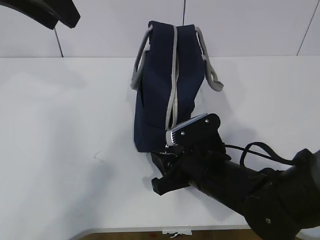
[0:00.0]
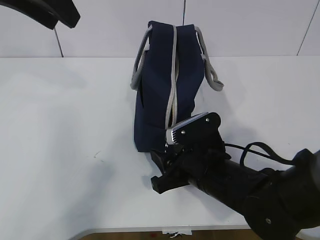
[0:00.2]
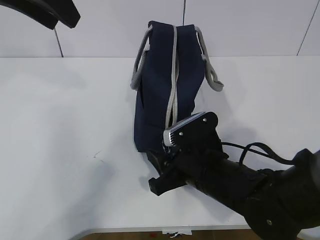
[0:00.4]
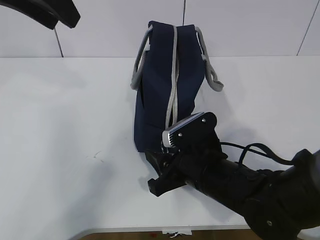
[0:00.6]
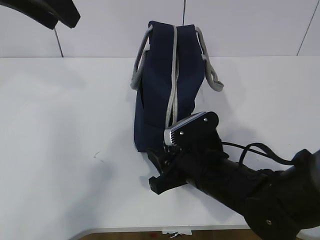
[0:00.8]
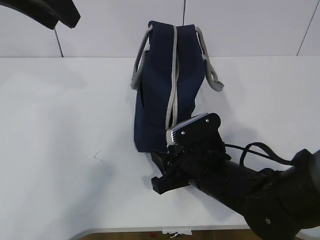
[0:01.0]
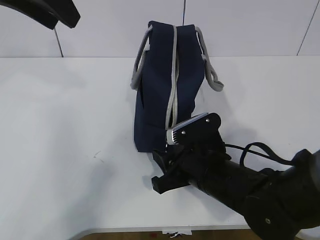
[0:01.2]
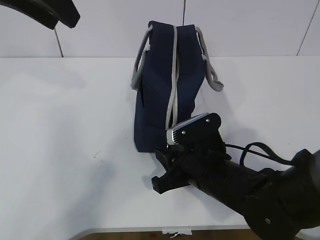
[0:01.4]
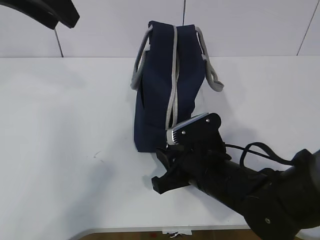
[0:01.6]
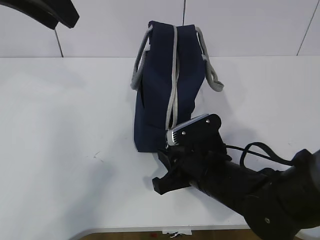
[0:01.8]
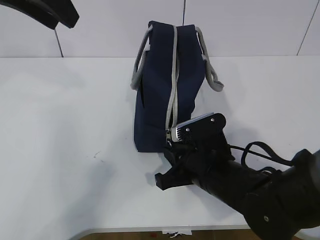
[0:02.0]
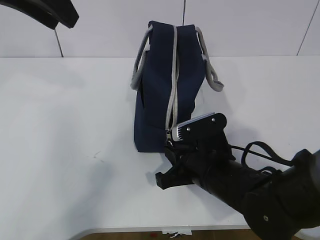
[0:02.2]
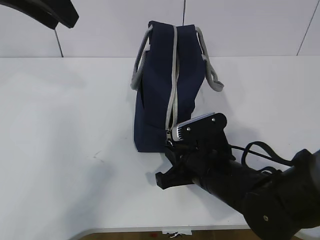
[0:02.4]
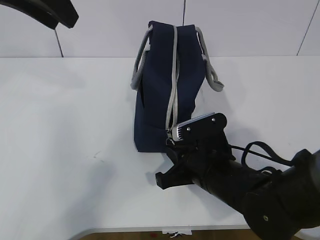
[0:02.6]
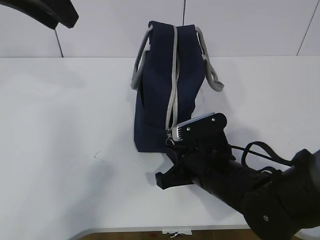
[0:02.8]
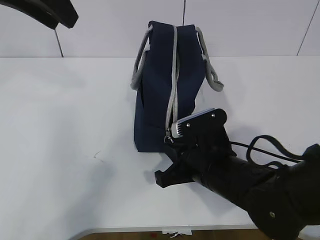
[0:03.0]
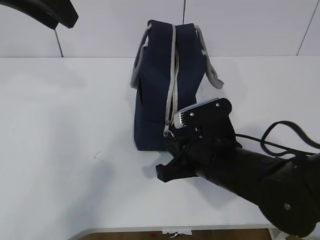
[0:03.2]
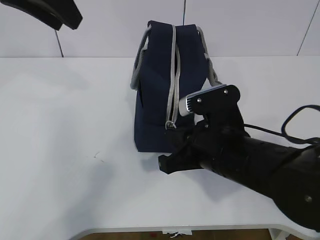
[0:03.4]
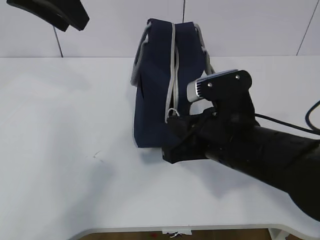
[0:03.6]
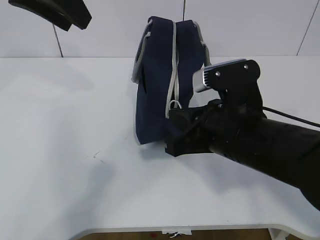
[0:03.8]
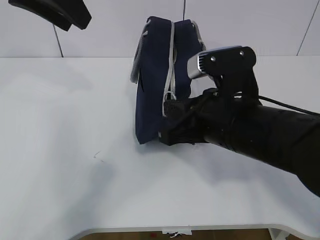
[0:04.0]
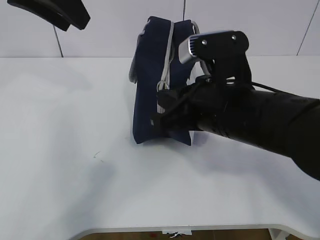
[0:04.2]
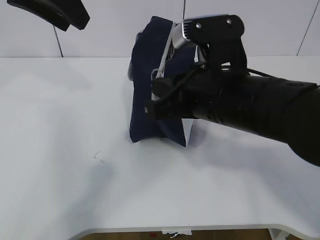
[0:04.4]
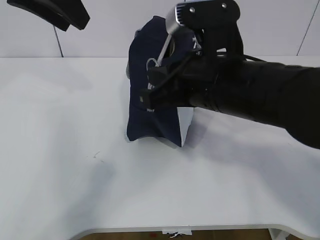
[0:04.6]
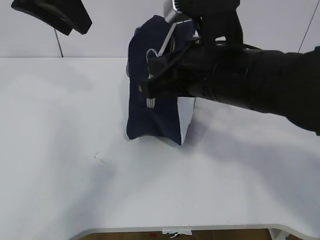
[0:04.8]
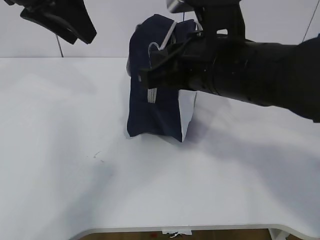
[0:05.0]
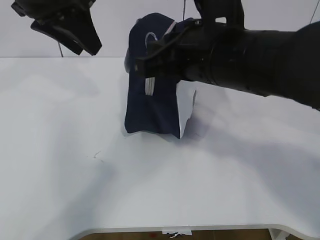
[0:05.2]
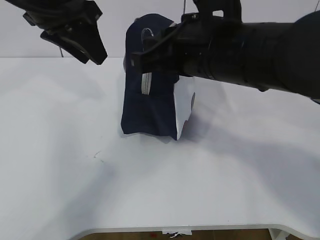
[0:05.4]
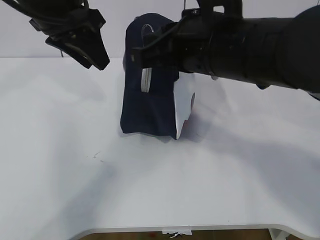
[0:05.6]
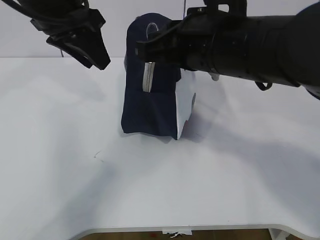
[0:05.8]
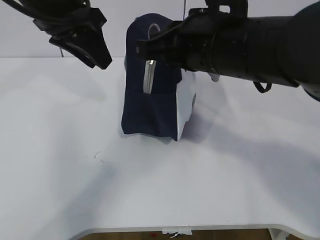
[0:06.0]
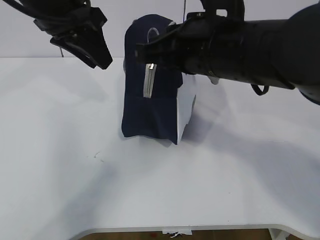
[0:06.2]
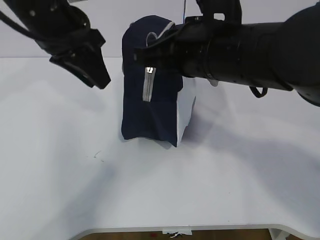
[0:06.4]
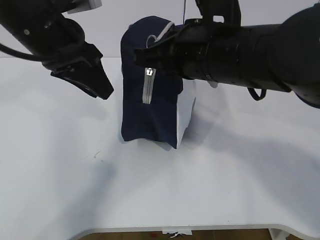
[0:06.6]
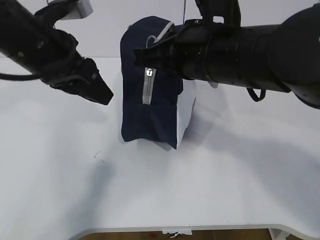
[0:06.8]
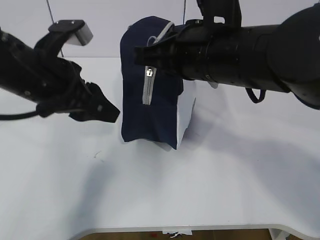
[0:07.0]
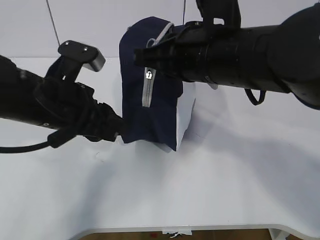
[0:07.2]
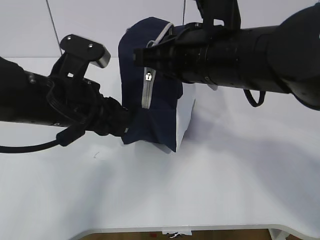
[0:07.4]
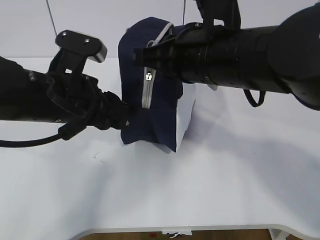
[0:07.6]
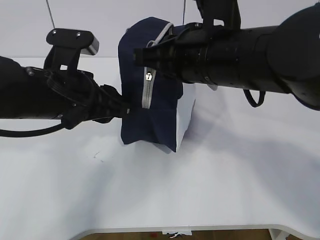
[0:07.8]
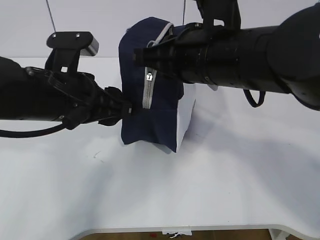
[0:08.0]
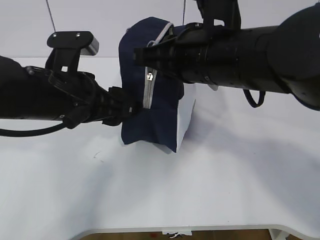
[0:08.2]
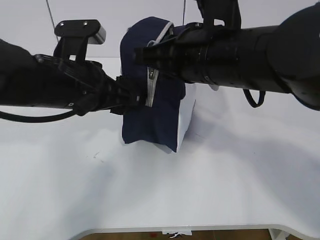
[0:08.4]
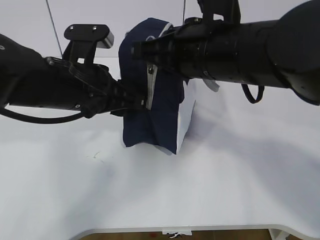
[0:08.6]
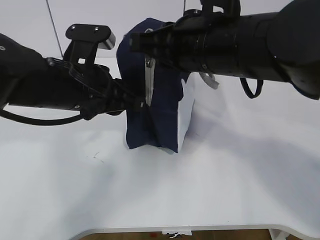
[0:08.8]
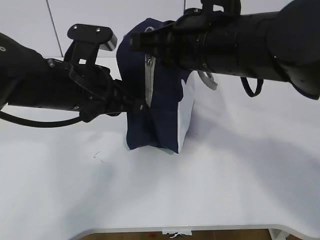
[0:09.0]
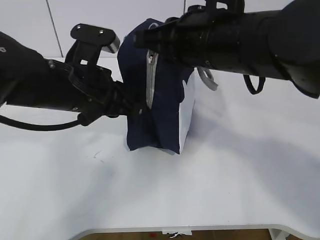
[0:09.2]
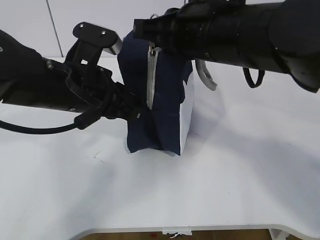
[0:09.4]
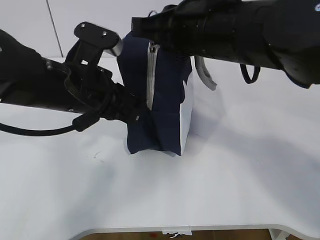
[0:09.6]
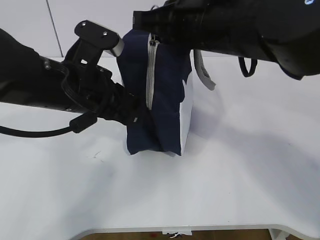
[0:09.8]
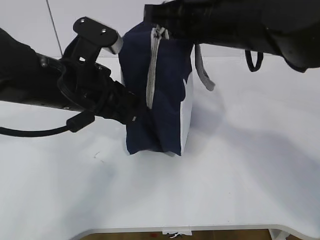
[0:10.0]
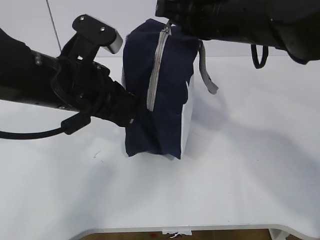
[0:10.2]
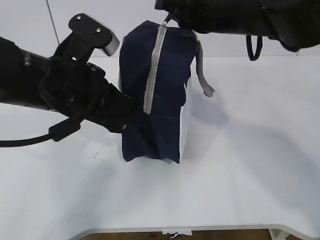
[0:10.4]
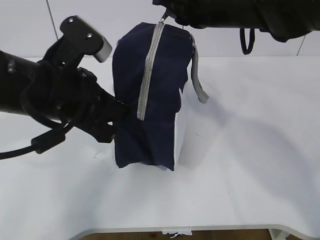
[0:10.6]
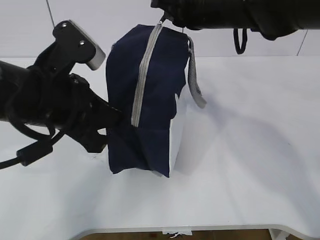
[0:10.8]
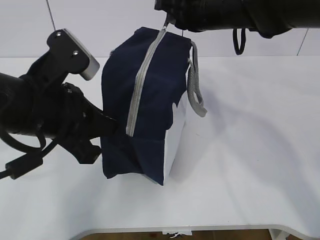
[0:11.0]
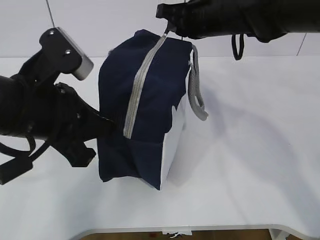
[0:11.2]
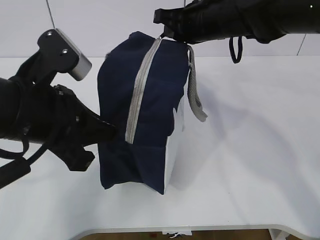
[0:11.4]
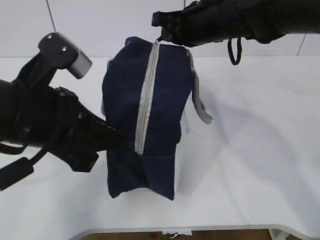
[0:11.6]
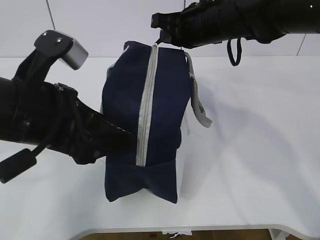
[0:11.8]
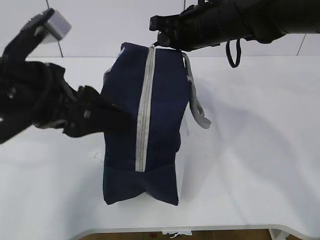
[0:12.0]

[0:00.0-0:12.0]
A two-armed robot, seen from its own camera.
0:00.0 to 0:01.6: There are only small adjustments of the grippers.
0:01.6 to 0:03.0: The right gripper closes up.
0:03.0 to 0:04.4: The right gripper shifts approximately 15 cm upward.
0:04.4 to 0:06.0: The right gripper travels upward by some 5 cm; the left gripper shifts roughly 5 cm downward.
0:06.0 to 0:07.6: The left gripper heads downward and backward, covering roughly 15 cm.
0:07.6 to 0:09.0: The left gripper closes up.
0:09.0 to 0:10.4: The right gripper heads forward, covering some 5 cm.
0:10.4 to 0:12.0: The left gripper changes place by about 5 cm, and opens up. The right gripper shifts some 5 cm forward.

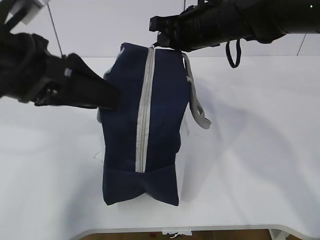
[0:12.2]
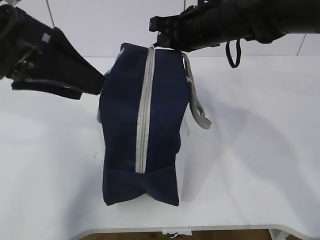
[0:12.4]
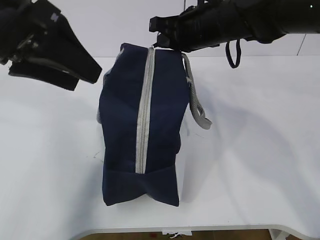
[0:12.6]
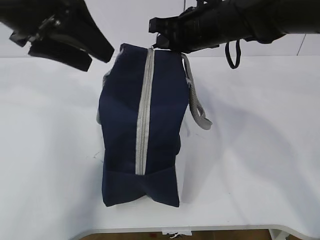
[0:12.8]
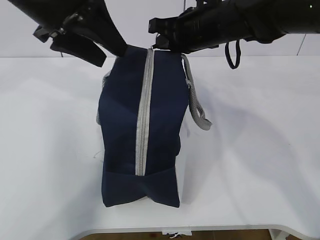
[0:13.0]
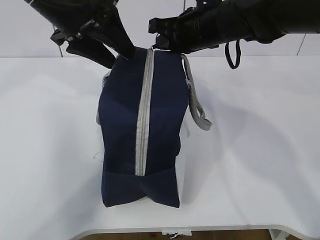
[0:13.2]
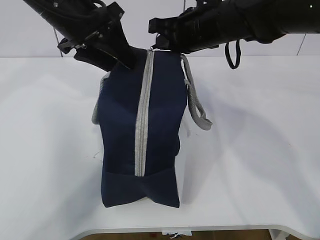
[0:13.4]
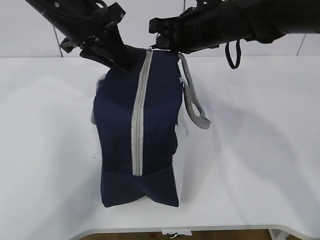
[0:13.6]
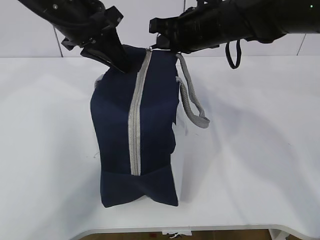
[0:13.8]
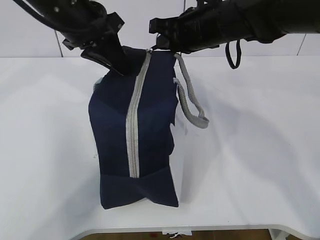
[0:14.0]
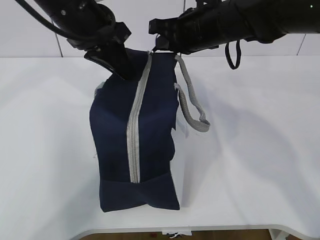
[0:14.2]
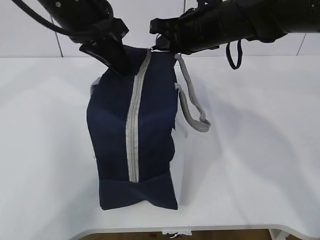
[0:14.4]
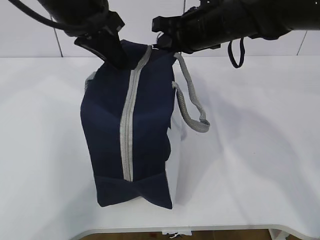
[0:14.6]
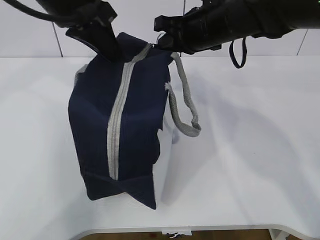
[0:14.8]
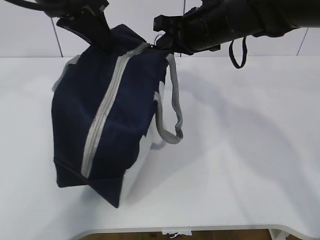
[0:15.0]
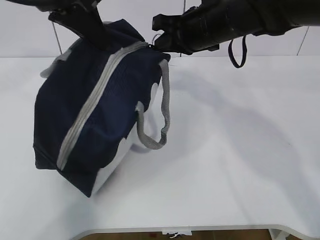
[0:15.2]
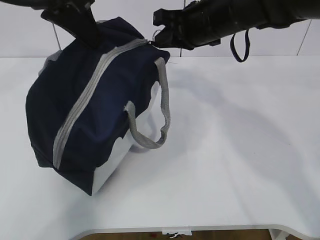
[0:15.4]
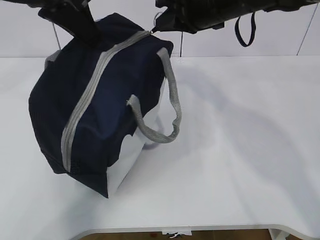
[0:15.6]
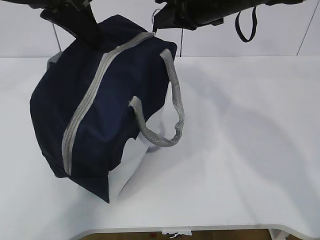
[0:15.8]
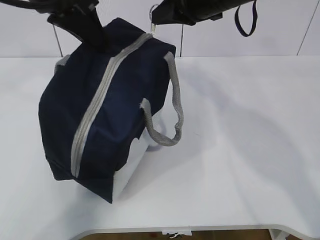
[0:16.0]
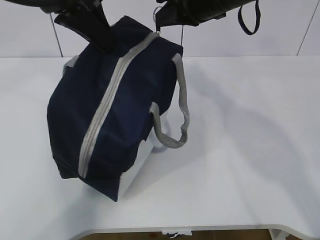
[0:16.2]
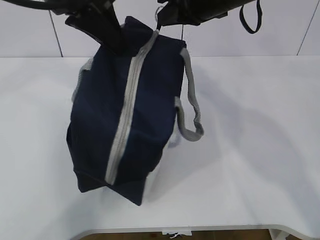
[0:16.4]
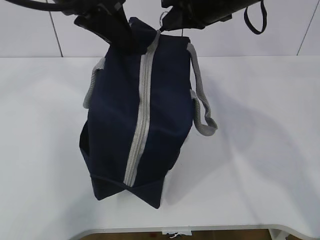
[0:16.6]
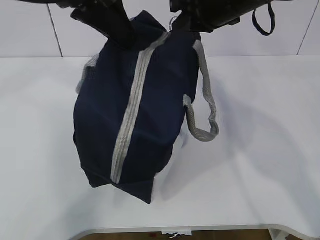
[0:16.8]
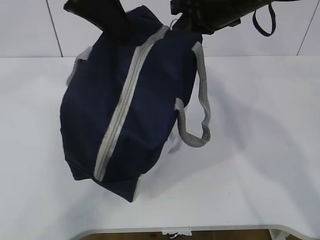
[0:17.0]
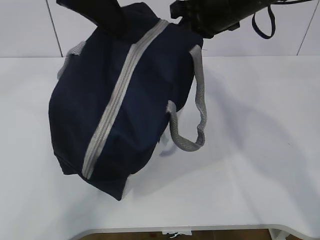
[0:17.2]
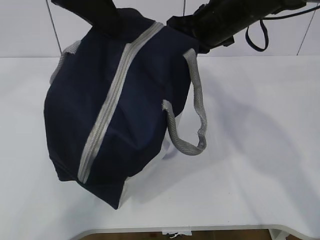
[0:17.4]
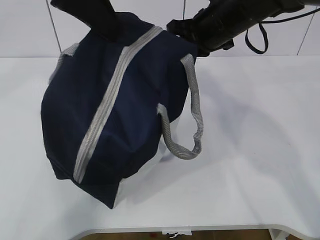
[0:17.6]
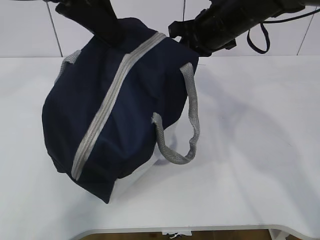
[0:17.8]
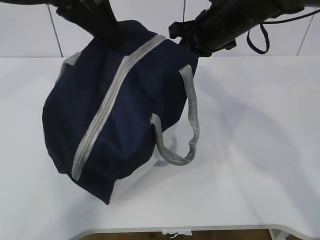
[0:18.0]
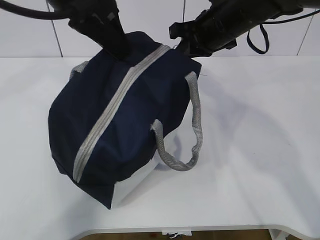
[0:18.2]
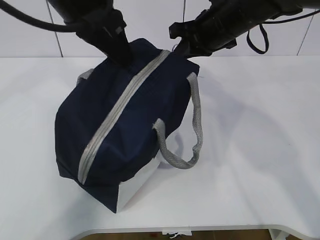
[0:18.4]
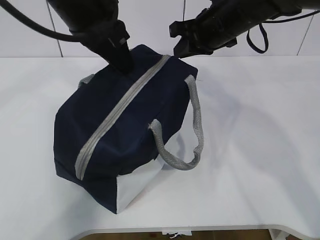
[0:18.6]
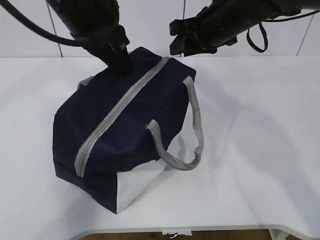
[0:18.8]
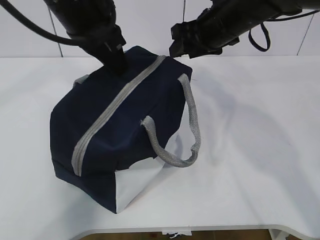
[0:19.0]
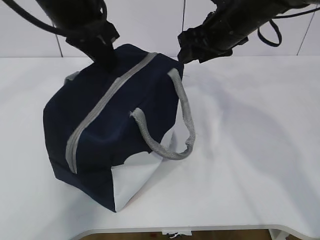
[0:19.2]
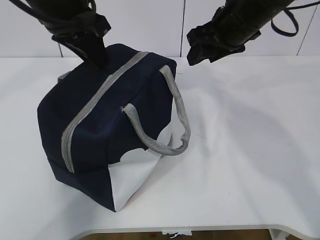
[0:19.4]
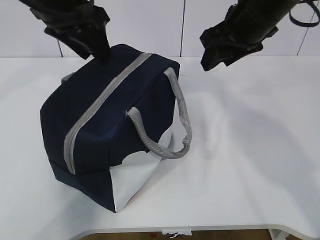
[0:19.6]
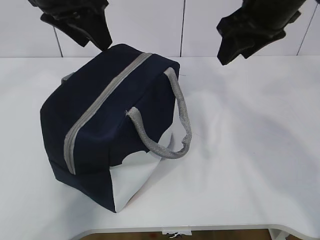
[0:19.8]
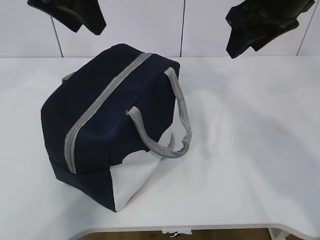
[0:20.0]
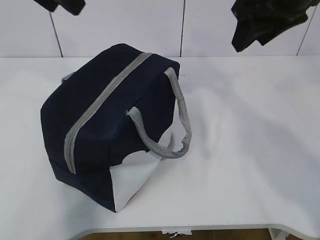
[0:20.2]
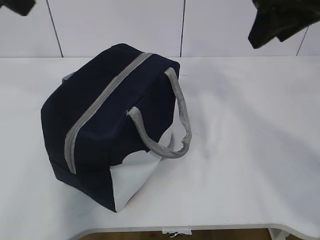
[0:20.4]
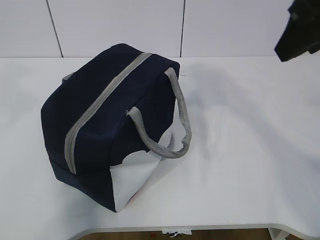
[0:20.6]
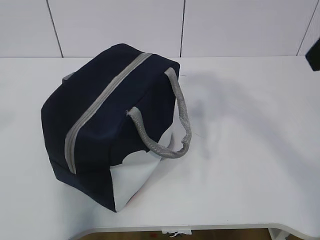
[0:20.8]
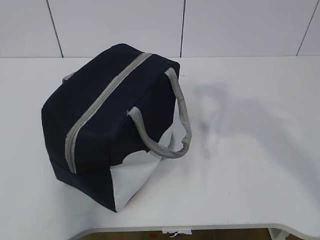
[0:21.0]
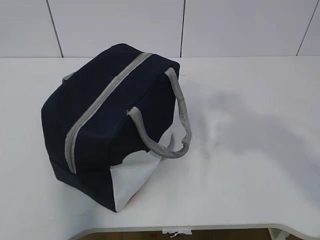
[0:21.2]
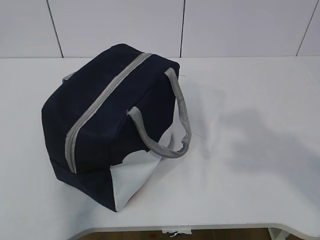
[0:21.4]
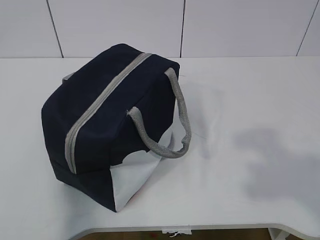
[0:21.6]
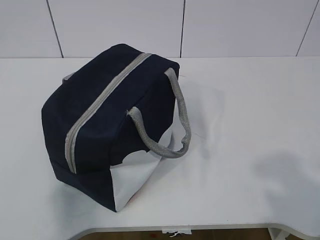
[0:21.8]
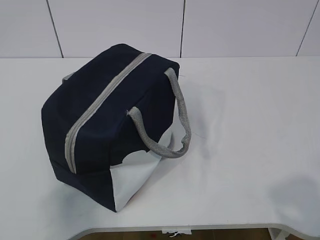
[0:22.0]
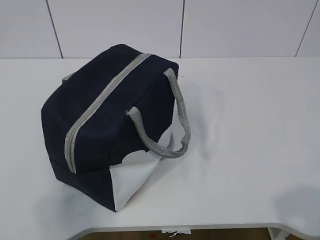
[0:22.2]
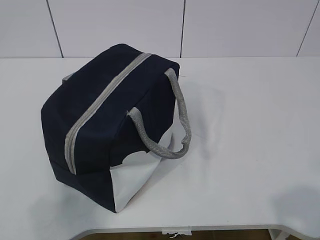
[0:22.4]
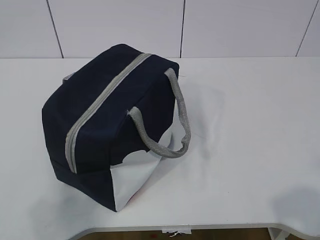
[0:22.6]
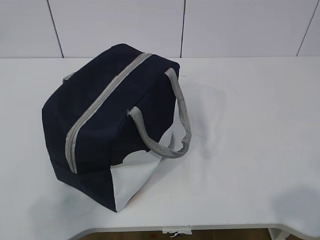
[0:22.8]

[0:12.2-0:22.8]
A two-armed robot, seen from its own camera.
Step, 0:12.2 to 0:19.8: zip up the zipper to close the bag.
0:12.2 to 0:13.8: The left gripper travels forward by approximately 15 cm, and closes its fingers.
0:13.8 to 0:15.2: The left gripper heads upward and backward, covering roughly 10 cm.
0:18.2 to 0:19.8: The left gripper moves forward, roughly 5 cm, and opens. Meanwhile the right gripper shifts approximately 10 cm backward and upward, and opens up.
0:19.8 to 0:21.2: The right gripper shifts approximately 25 cm backward. Meanwhile the left gripper moves backward and to the left, roughly 35 cm.
0:21.2 to 0:22.8: The left gripper is displaced downward by about 15 cm. Meanwhile the right gripper goes roughly 20 cm downward and backward.
